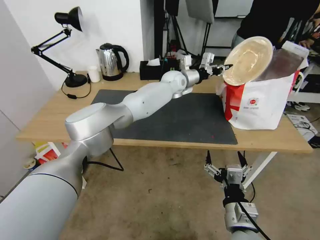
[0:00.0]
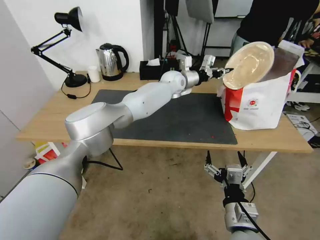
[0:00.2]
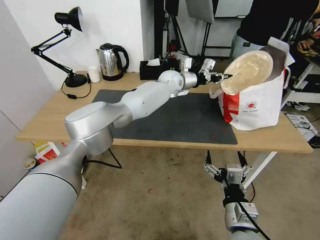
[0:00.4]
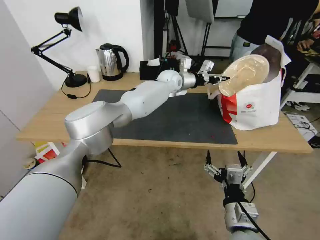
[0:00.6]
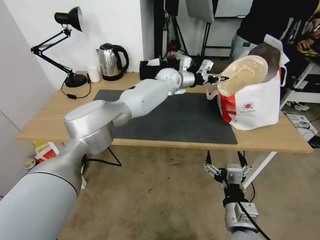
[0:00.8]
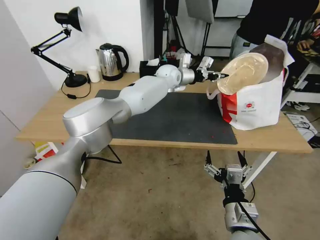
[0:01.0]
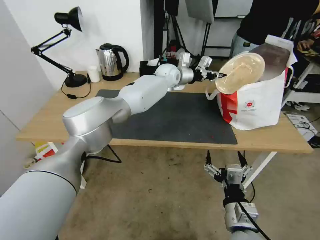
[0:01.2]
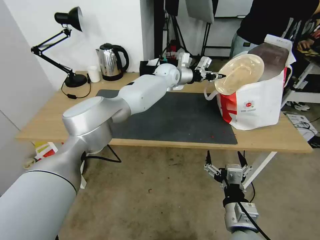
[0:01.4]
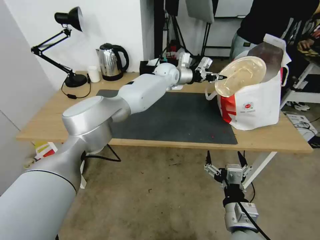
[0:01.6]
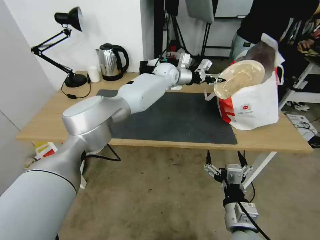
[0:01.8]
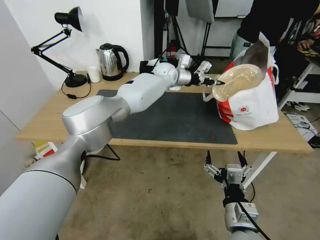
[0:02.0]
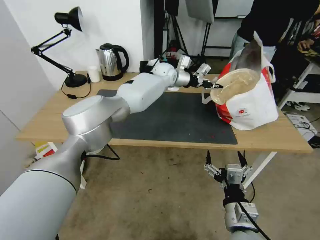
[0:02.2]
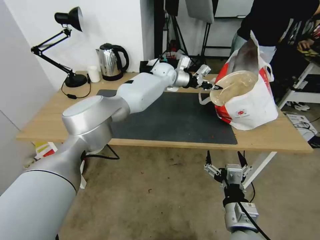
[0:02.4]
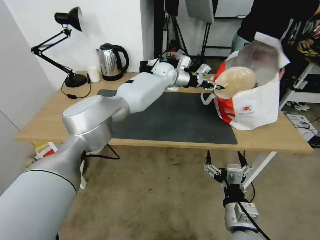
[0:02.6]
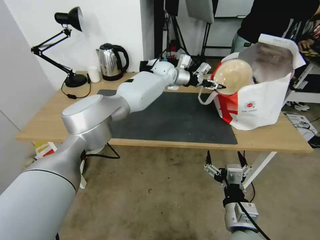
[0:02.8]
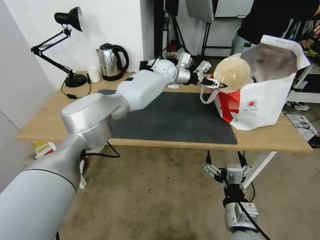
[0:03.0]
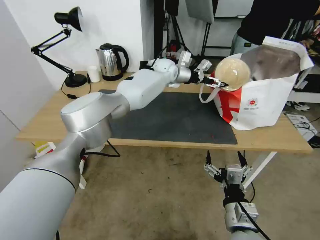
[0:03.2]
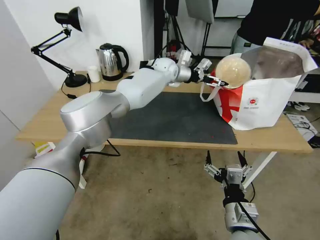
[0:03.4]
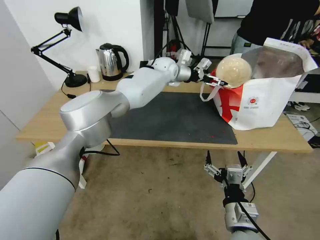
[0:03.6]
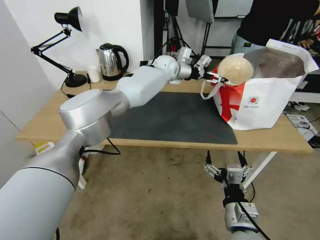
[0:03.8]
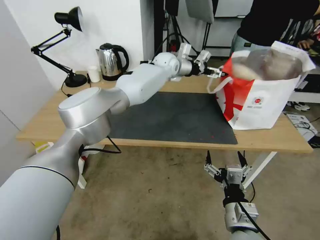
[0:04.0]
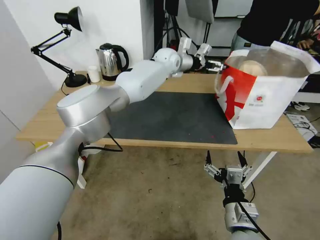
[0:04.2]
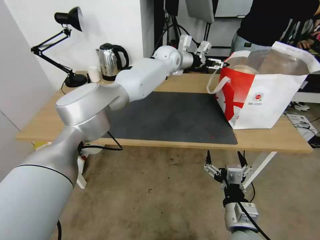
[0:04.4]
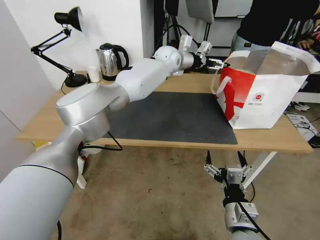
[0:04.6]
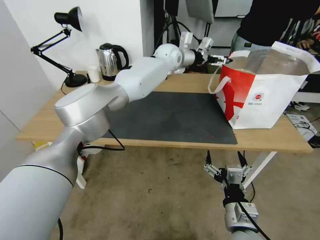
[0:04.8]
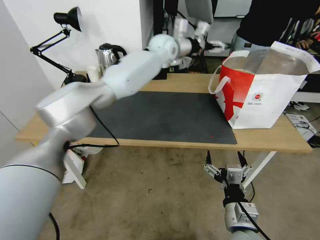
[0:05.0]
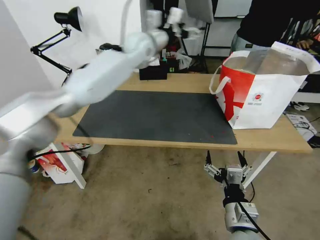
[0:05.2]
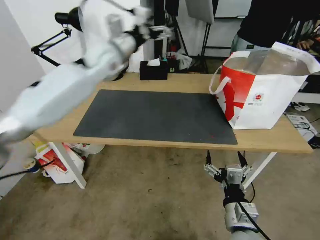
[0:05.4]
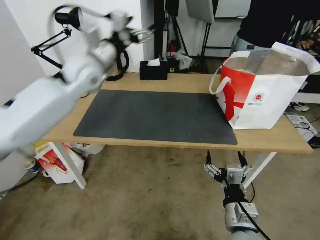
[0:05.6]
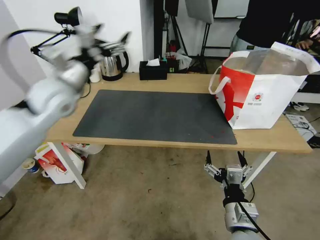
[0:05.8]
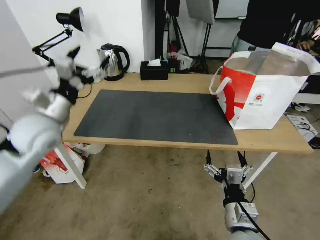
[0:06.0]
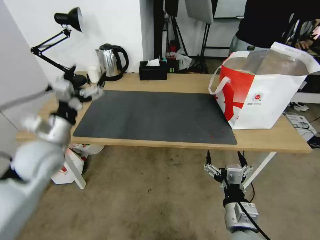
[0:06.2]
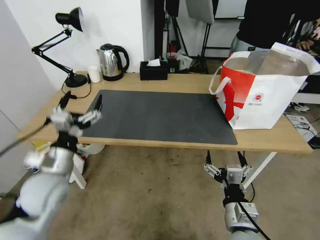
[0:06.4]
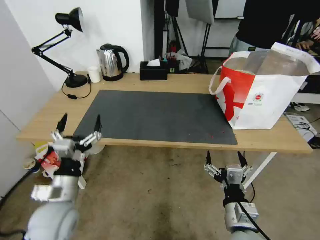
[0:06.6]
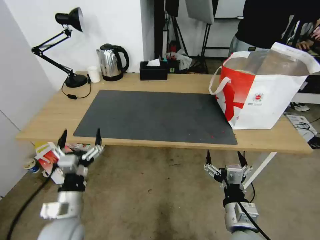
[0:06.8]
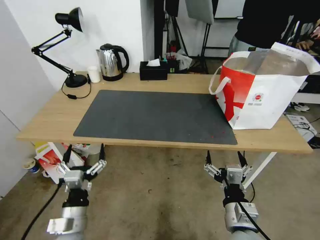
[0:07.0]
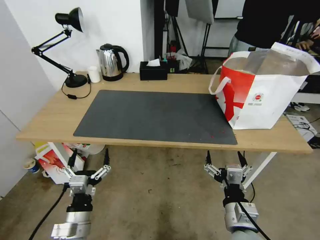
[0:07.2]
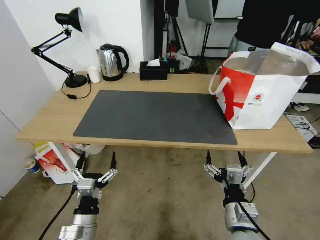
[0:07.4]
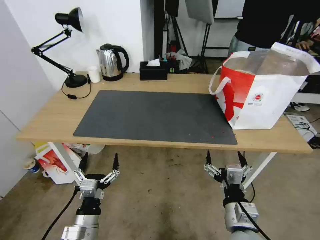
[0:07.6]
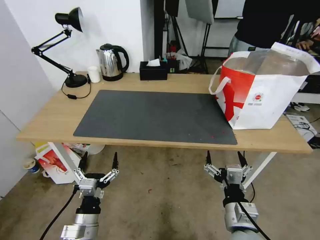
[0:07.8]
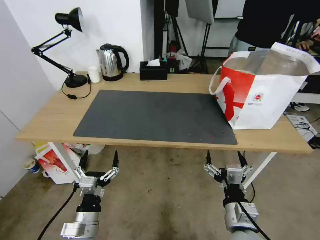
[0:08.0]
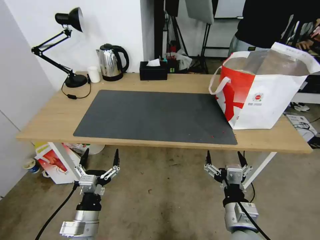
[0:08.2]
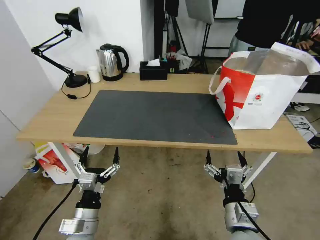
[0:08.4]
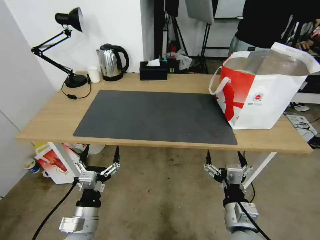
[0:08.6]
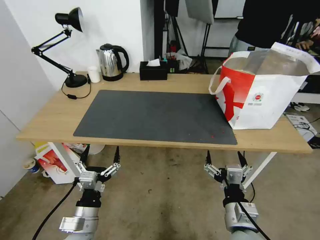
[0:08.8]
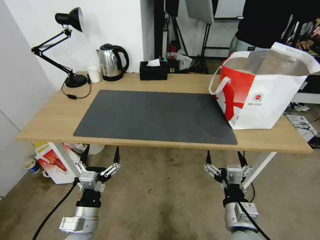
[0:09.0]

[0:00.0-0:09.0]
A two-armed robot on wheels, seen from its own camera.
Task of the whole recording: Pick up the trash from the table and place it into the takeout bag.
0:00.0 to 0:01.6: The grippers move only a little.
0:01.6 to 0:03.0: The left gripper opens.
0:03.0 to 0:04.4: The left gripper shifts approximately 5 cm upward.
0:04.4 to 0:06.0: The left gripper travels to the left and backward by some 50 cm.
0:06.0 to 0:07.6: The left gripper goes some 35 cm downward and backward.
0:07.6 to 0:09.0: The grippers move only a little.
